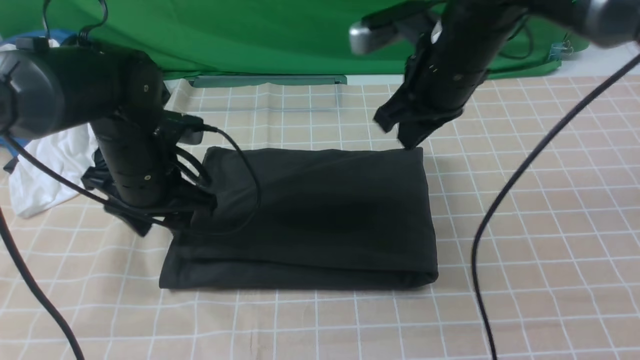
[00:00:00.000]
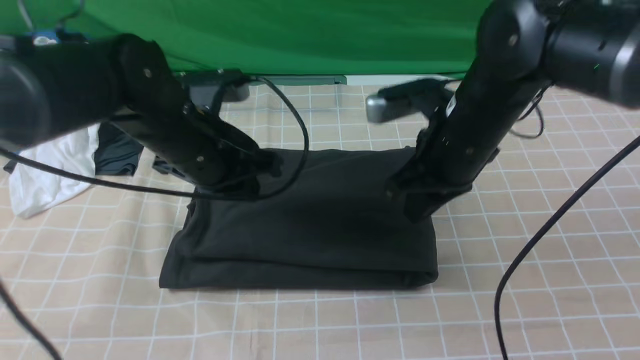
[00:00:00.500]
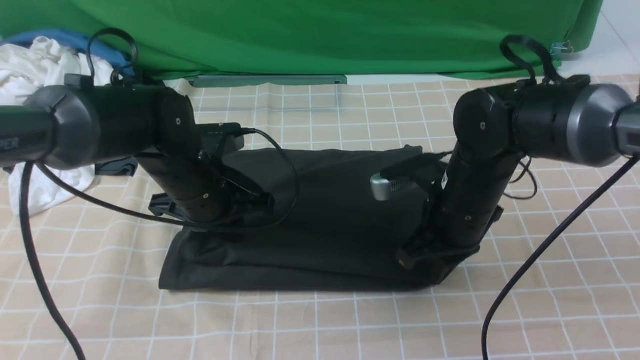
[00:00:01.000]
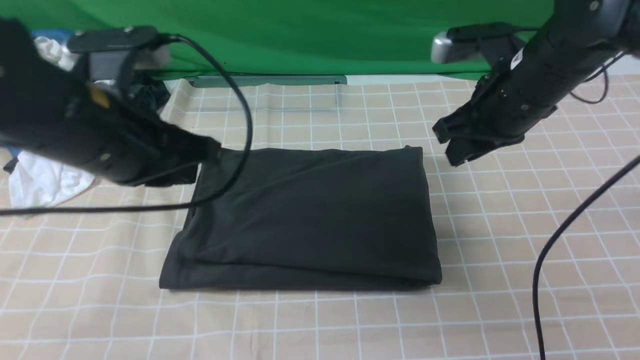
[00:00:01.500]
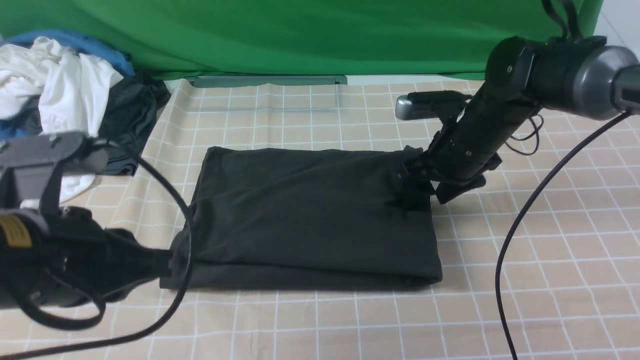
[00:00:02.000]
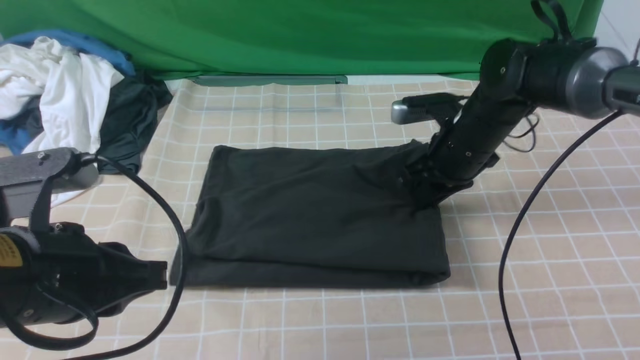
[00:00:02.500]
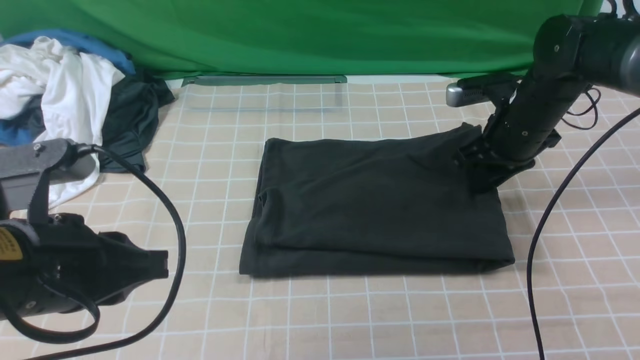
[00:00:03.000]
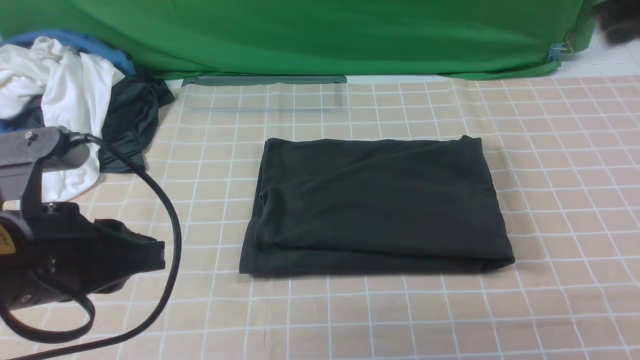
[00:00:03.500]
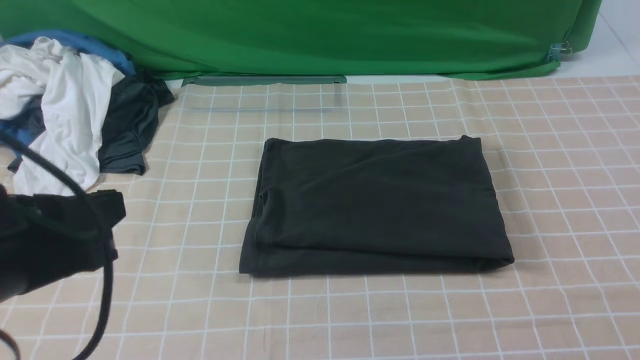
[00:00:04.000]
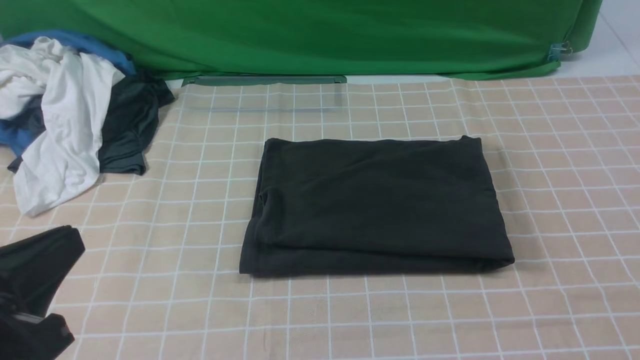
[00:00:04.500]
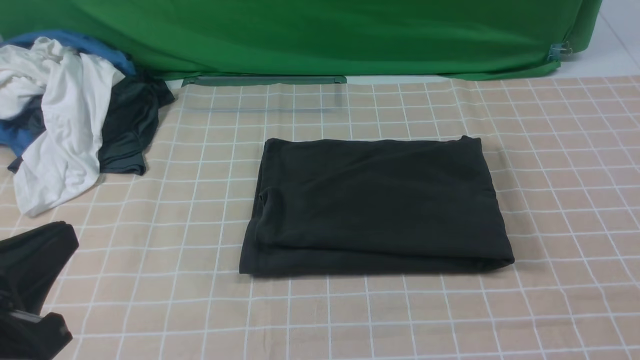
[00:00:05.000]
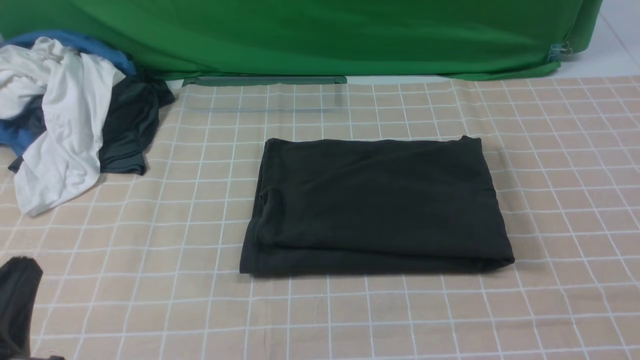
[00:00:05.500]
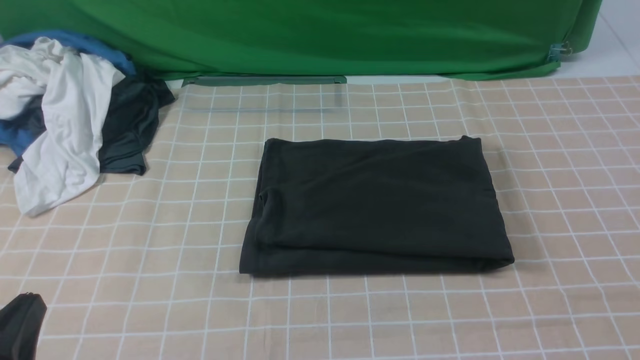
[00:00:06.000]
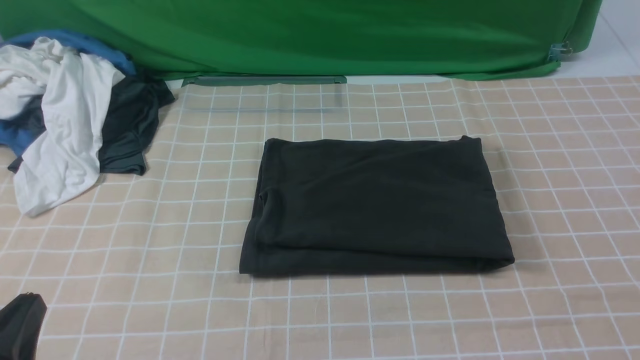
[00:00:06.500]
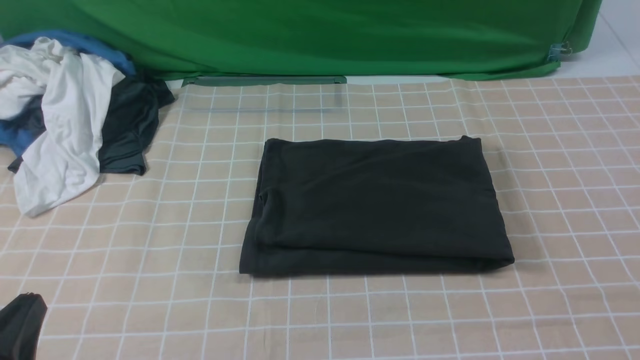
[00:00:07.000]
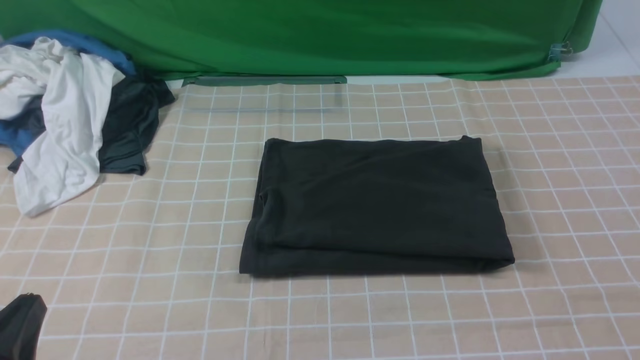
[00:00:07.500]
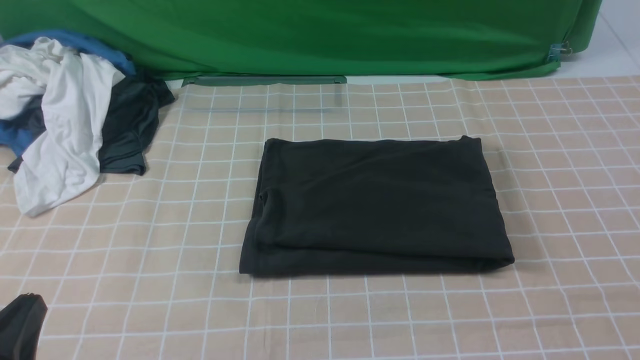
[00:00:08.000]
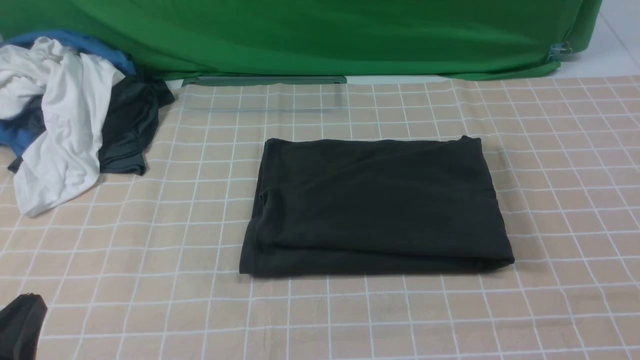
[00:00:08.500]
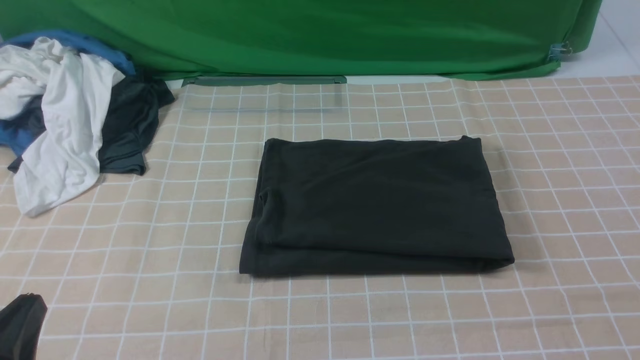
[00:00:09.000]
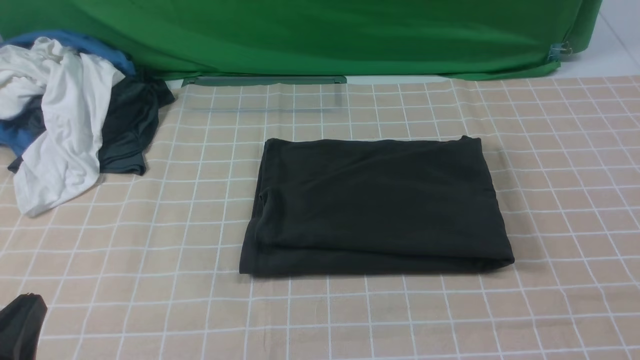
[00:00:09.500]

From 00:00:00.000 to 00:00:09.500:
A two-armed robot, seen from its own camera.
From 00:00:00.000 to 00:00:02.000: The left gripper moves backward and upward, roughly 20 cm, and closes. Meanwhile the right gripper goes up and down, approximately 10 cm each way, reversing 2 times, and opens its fingers.
From 00:00:02.000 to 00:00:04.000: The left gripper ends up about 5 cm from where it was. The right gripper goes about 40 cm backward, upward and to the right, and closes.
From 00:00:04.000 to 00:00:05.500: The left gripper shifts some 10 cm downward and backward.
From 00:00:07.500 to 00:00:09.500: The two grippers keep their place.
